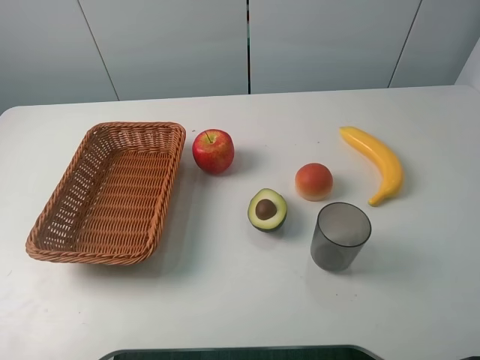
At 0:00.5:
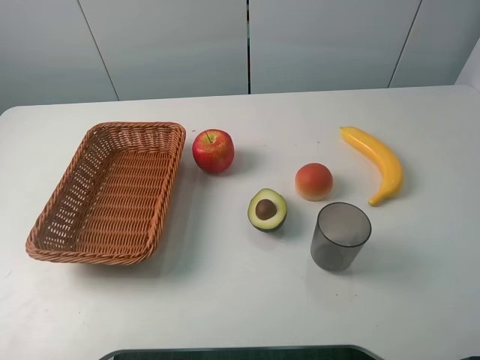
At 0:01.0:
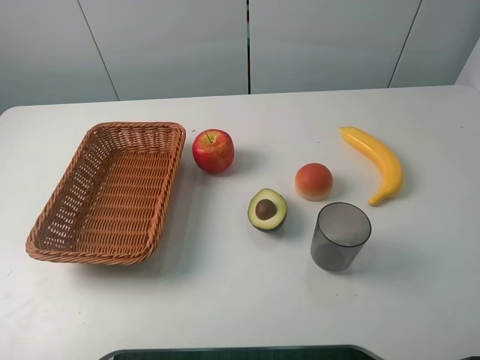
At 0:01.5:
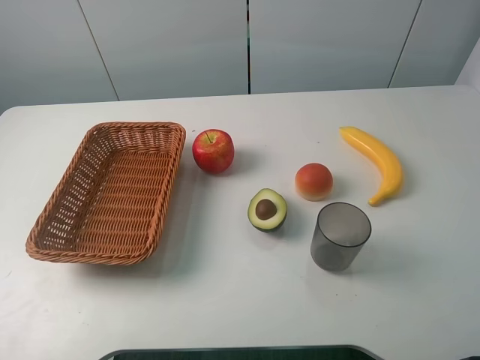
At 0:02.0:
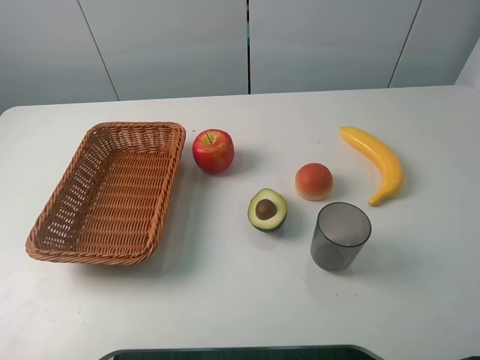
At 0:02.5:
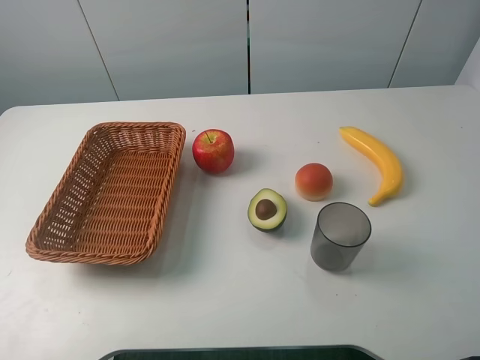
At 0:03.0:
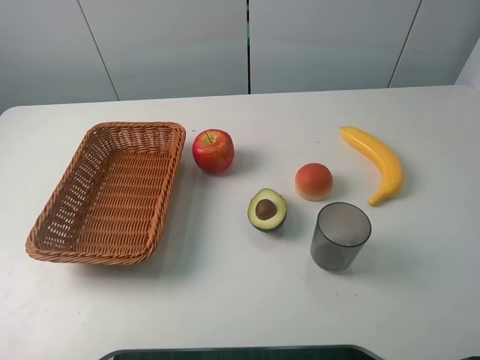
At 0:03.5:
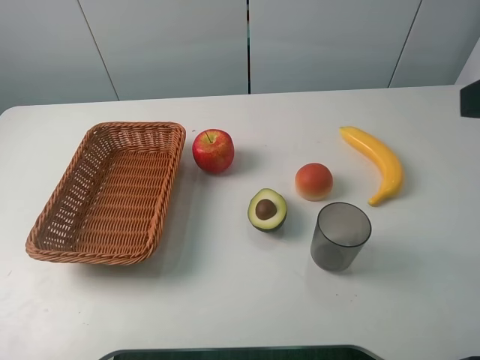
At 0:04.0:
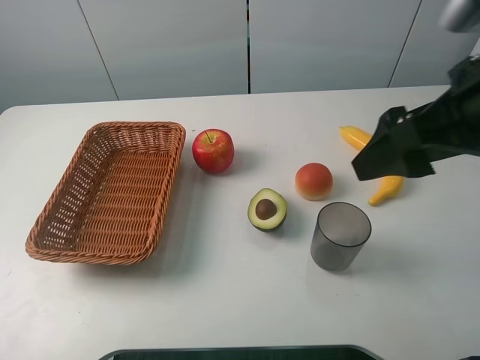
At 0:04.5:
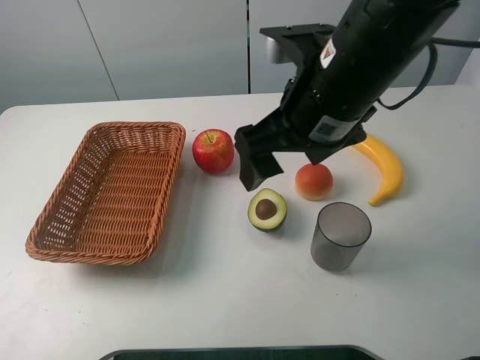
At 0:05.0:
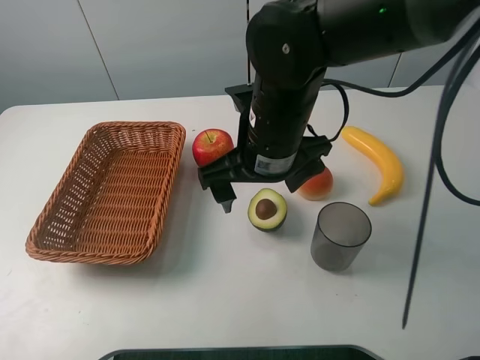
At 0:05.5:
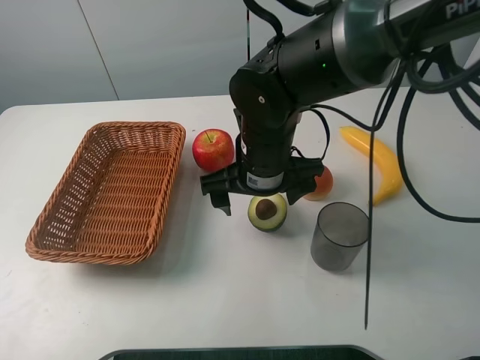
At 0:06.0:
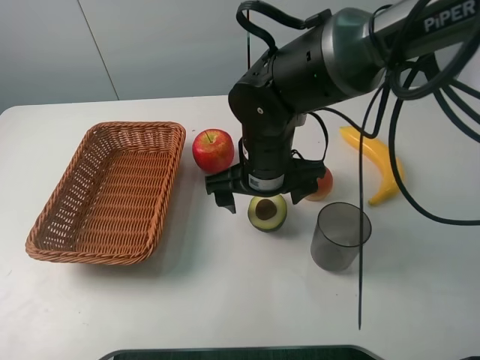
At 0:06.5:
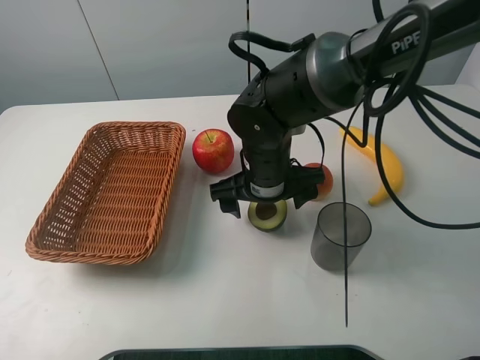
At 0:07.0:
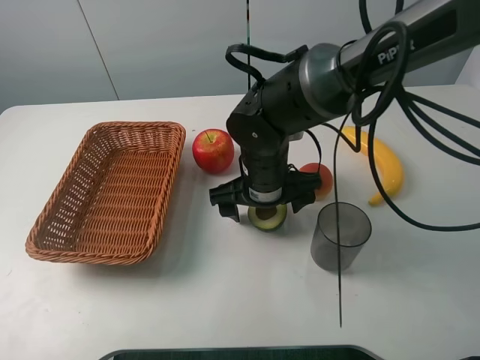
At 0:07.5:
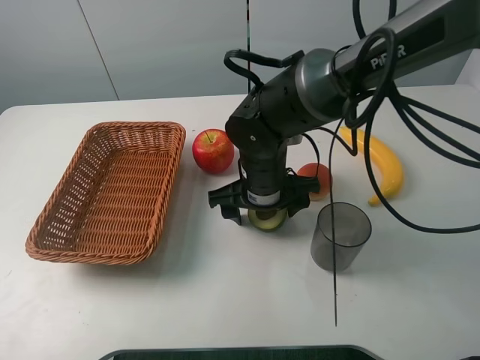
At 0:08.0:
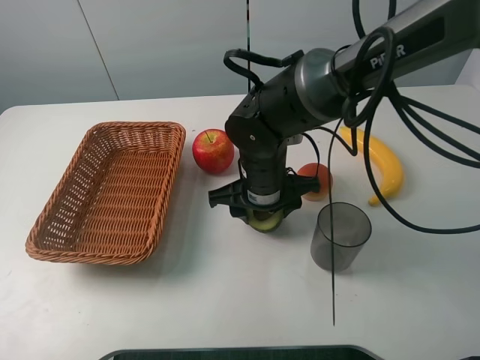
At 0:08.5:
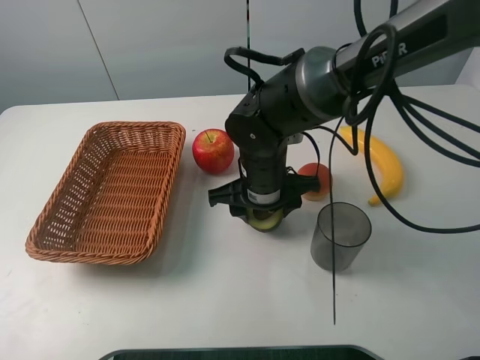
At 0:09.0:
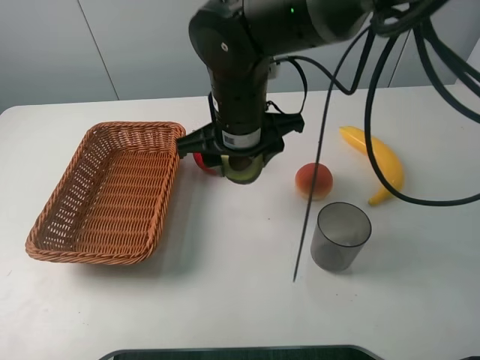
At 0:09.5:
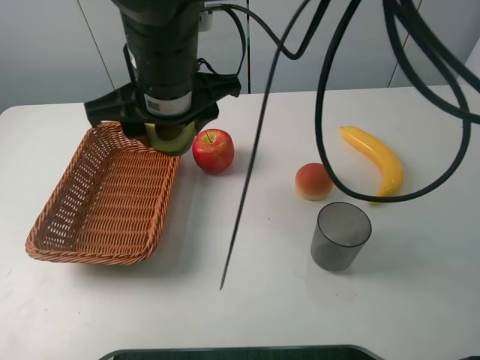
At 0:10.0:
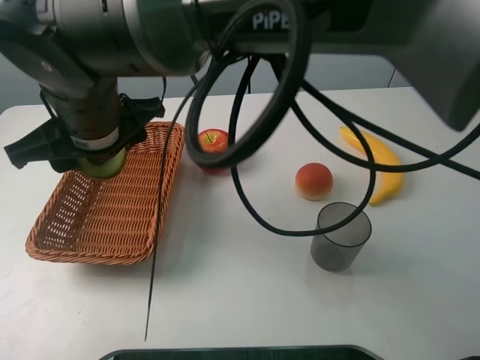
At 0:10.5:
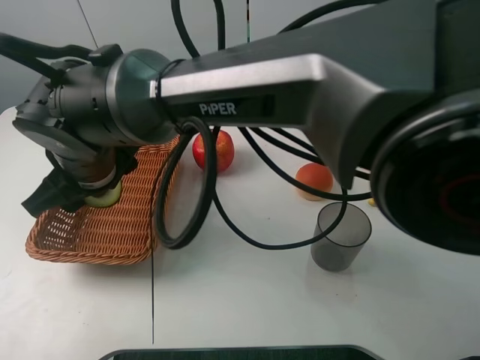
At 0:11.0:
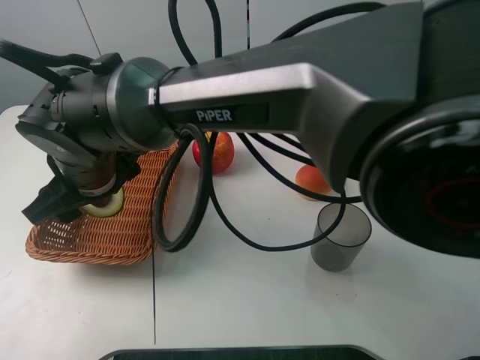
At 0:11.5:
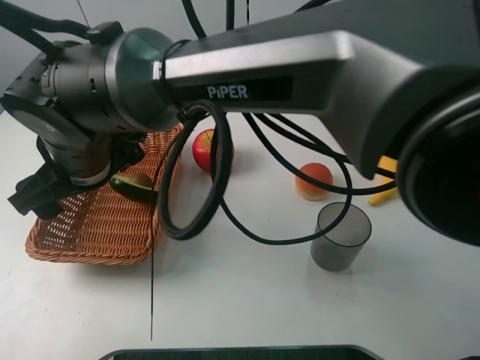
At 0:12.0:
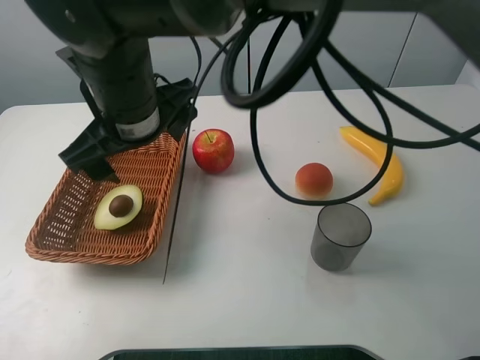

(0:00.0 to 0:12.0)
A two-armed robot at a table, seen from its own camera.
Task of the whole recording: randomly pick up an item from the table and put it in the basket.
Step, 0:00.0 - 0:07.5: Grasp the avocado with the right gripper.
Step, 0:08.0 - 0:11.5: Place the avocado into the basket with the right gripper.
0:02.0 - 0:04.0: The right gripper shifts some 20 cm forward and to the left.
0:04.0 - 0:06.0: The right gripper shifts about 25 cm to the left, downward and forward.
0:06.0 - 0:08.0: The right gripper closes up.
0:08.0 - 0:10.0: The right gripper travels to the left and upward by some 20 cm.
0:10.0 - 0:12.0: The right gripper reaches some 5 cm downward, then returns, and opens its fingers.

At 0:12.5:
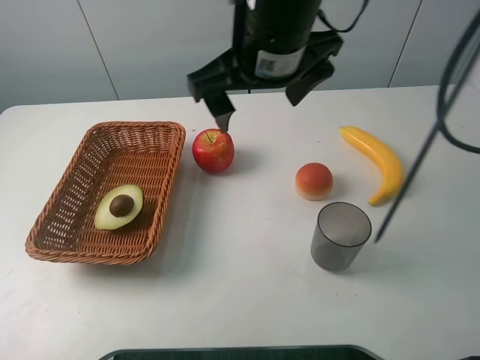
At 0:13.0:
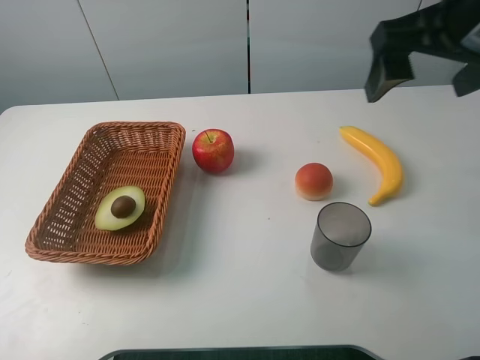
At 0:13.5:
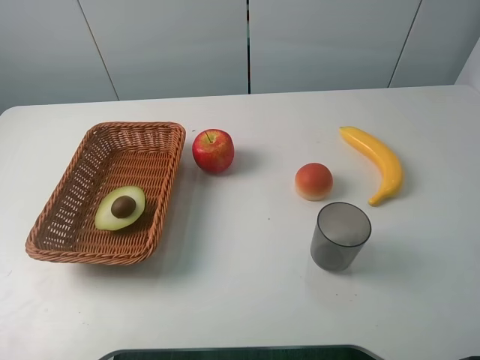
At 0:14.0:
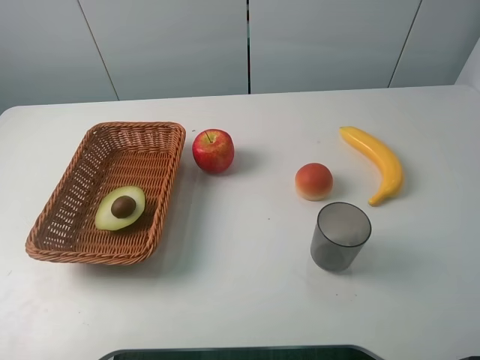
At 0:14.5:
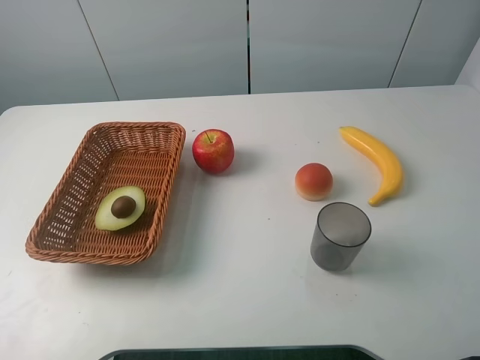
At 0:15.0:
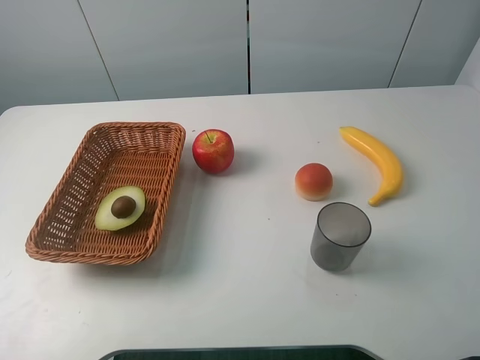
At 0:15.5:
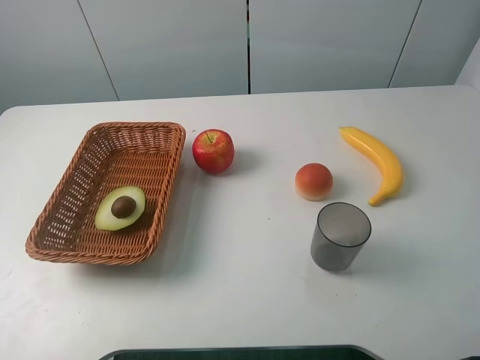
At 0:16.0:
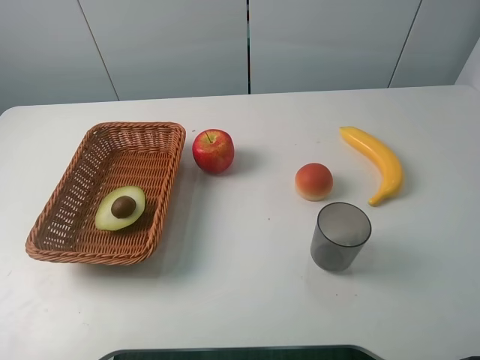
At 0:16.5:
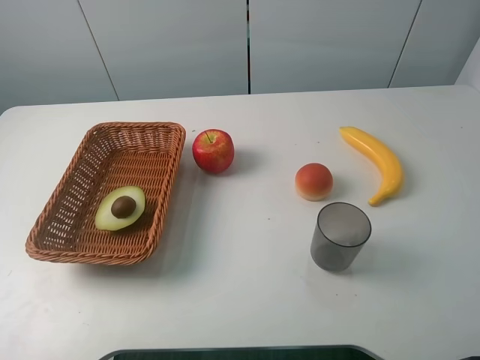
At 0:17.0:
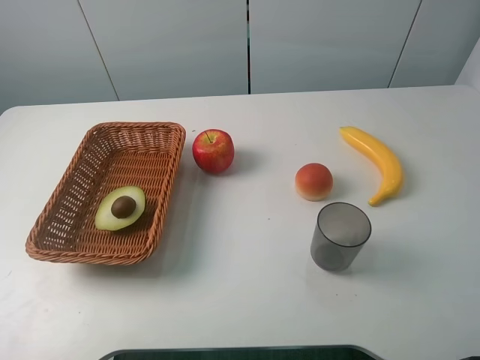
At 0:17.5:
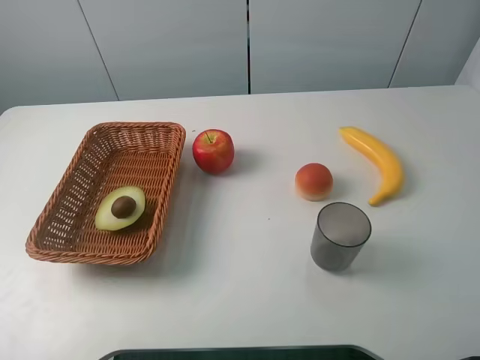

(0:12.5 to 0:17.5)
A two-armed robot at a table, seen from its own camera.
Task of the whole recording: randomly pick up an item from the table and put it in the basket.
0:12.5 - 0:15.0: The right gripper goes roughly 35 cm to the right and backward.
